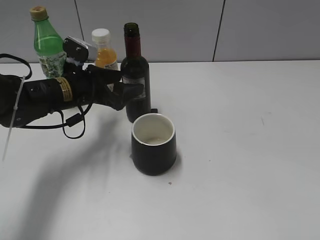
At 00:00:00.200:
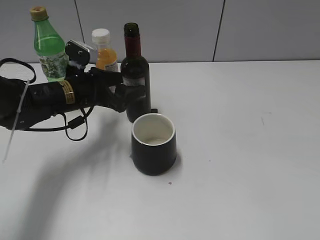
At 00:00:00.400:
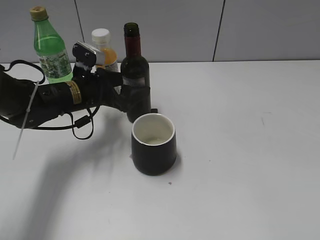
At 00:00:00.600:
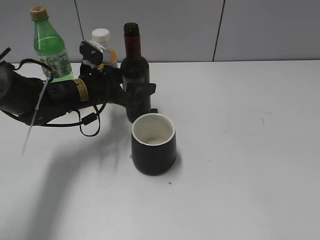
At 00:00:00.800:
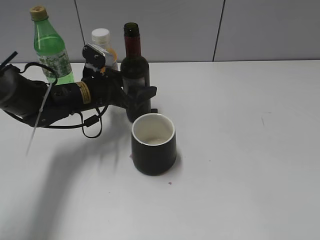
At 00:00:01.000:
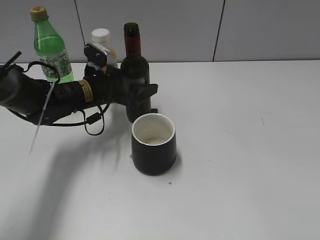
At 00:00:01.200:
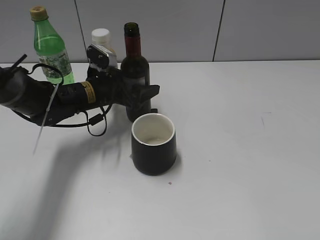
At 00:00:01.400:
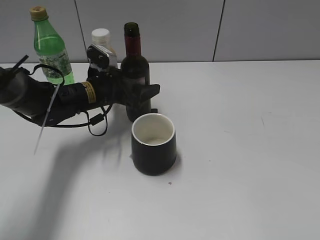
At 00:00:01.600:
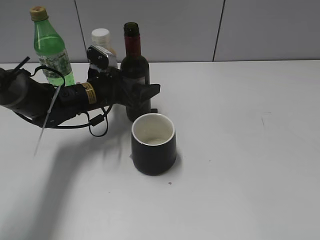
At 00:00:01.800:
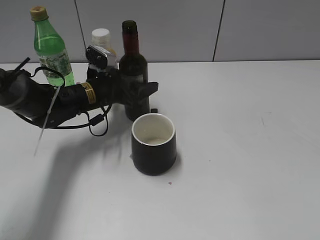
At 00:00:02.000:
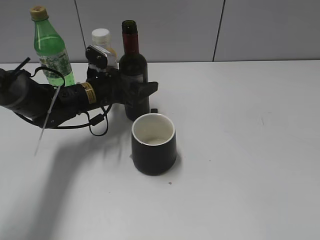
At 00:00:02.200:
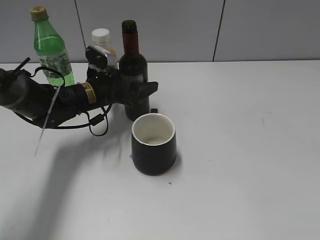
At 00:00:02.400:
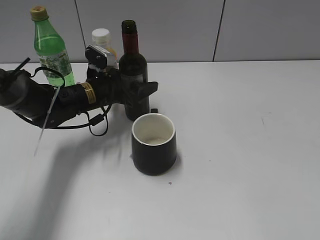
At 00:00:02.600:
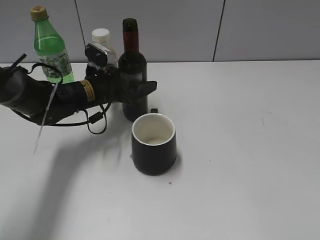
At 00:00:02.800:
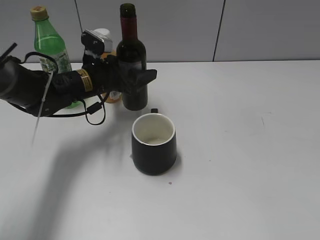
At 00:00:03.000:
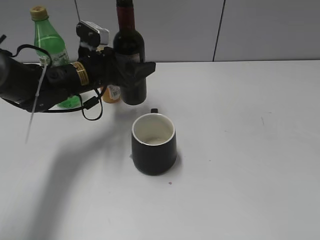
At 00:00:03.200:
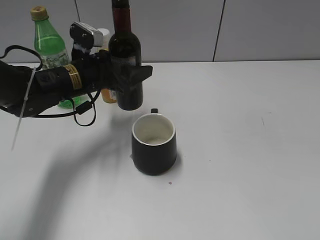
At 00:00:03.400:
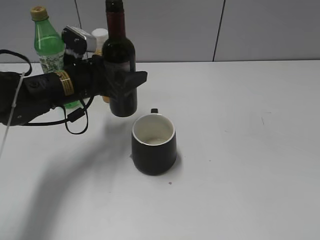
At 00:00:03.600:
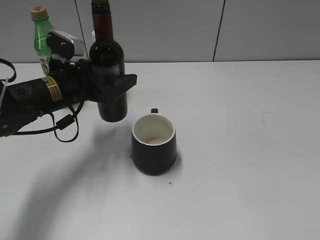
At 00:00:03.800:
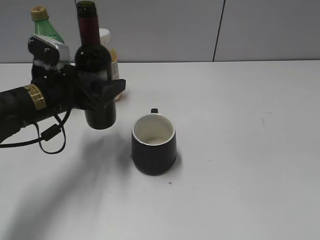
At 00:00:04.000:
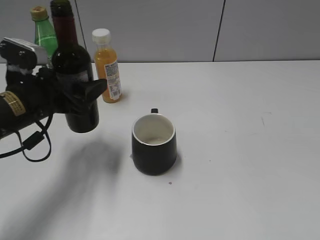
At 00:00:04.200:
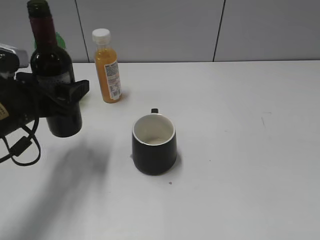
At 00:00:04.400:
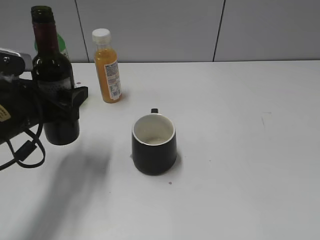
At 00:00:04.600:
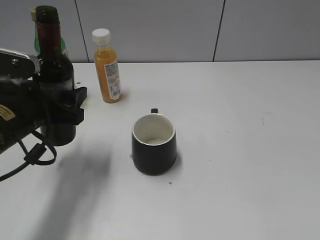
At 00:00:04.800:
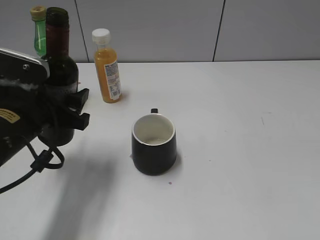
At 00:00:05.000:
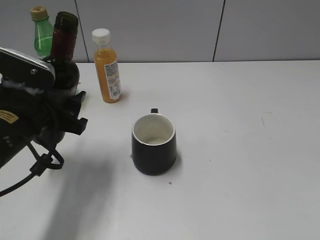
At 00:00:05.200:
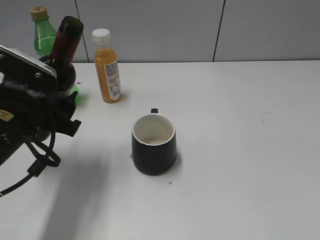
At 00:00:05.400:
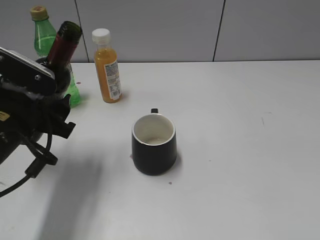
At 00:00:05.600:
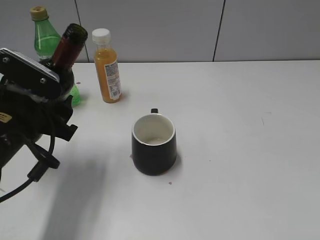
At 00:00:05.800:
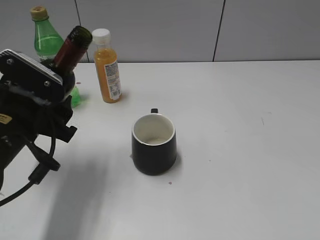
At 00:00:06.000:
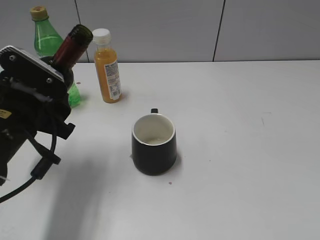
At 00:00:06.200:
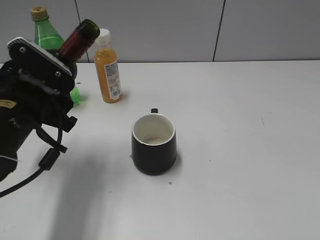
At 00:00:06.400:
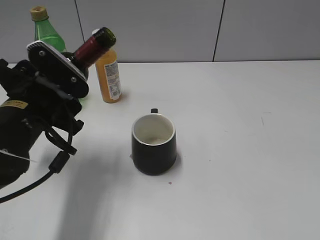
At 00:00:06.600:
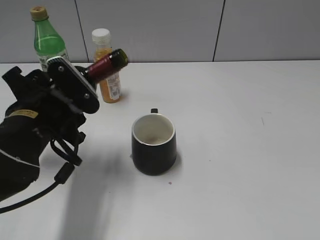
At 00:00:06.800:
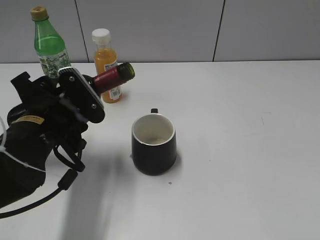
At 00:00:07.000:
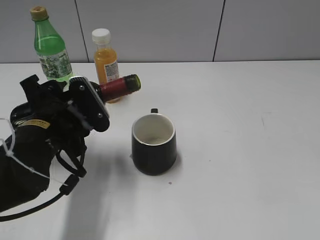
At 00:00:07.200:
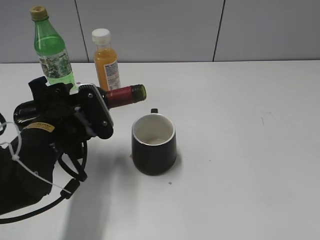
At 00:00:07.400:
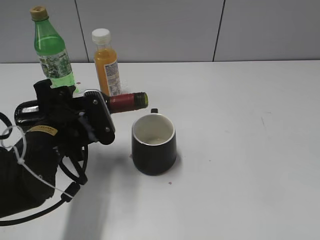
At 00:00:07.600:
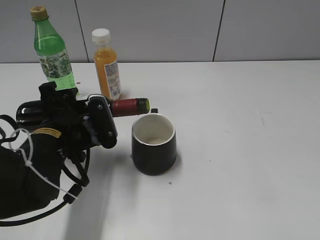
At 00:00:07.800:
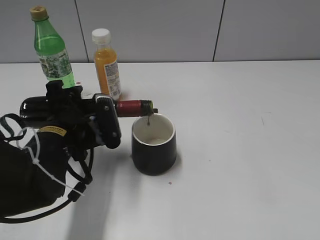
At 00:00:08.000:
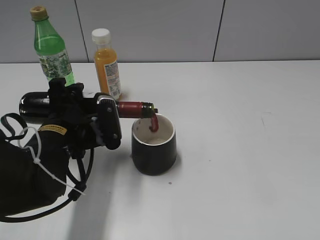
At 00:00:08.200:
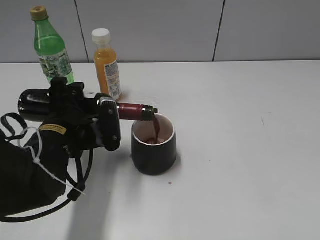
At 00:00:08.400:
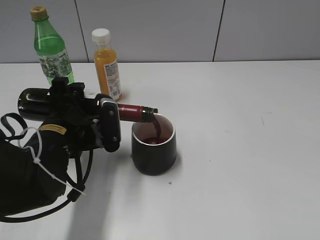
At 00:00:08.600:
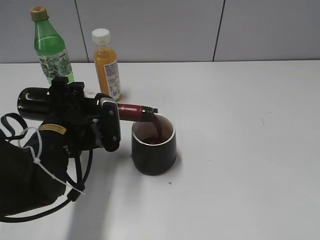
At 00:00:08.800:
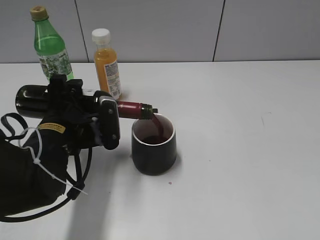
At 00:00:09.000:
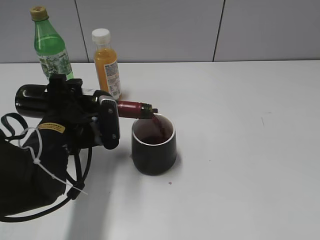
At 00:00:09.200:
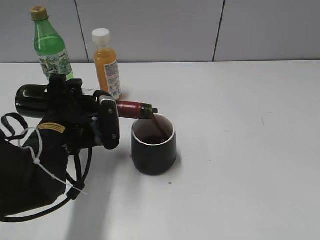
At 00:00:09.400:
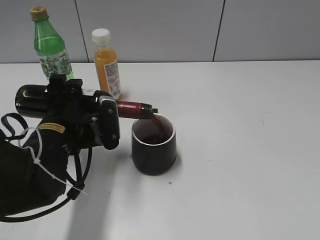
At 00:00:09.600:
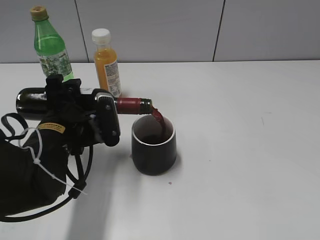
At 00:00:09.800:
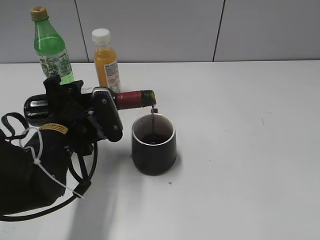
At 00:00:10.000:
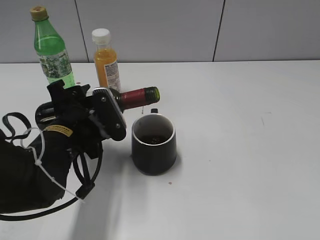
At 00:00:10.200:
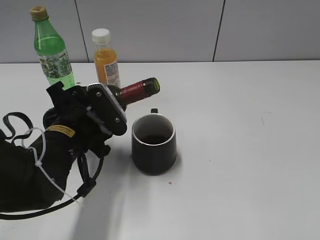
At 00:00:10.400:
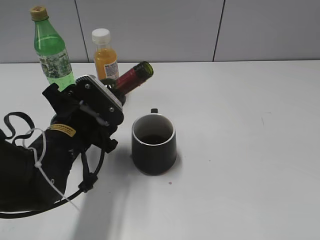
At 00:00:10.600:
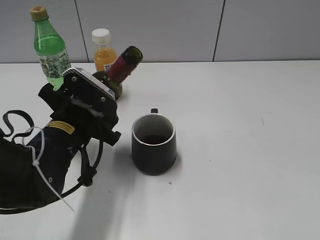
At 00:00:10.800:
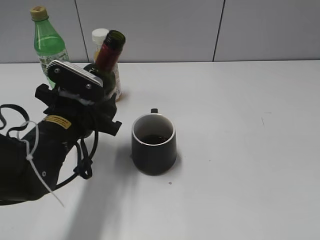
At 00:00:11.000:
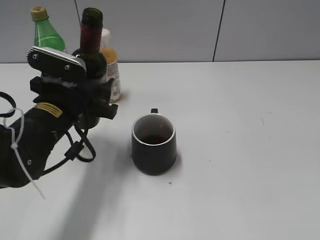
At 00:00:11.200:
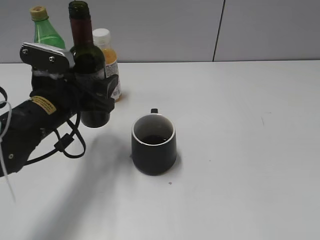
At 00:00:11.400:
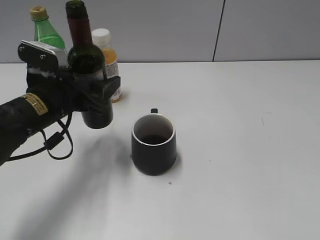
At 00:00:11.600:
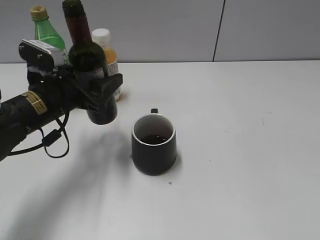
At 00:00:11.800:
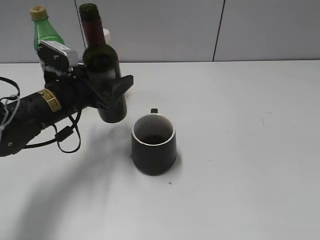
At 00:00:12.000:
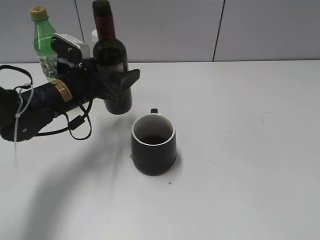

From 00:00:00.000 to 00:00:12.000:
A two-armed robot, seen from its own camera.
Step, from 00:00:00.000 to 00:00:02.200: Grasp the bottle with red wine with left gripper.
Step, from 00:00:02.600 to 00:00:10.000: Pour the red wine from bottle to cup with left gripper.
From 00:00:00.000 to 00:00:01.600: The left gripper changes place by roughly 5 cm.
From 00:00:01.600 to 00:00:03.000: The left gripper is displaced upward by some 5 cm, and closes.
From 00:00:03.000 to 00:00:04.400: The left gripper travels backward and to the left by approximately 15 cm.
From 00:00:06.000 to 00:00:07.600: The left gripper moves approximately 5 cm.
From 00:00:07.600 to 00:00:09.000: There are only small adjustments of the grippers.
From 00:00:10.400 to 00:00:12.000: The left gripper moves forward, about 10 cm.

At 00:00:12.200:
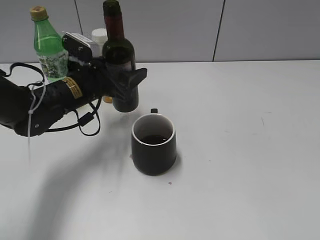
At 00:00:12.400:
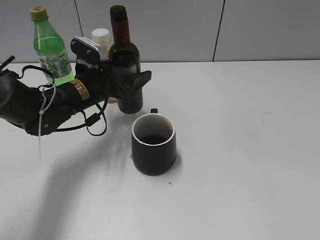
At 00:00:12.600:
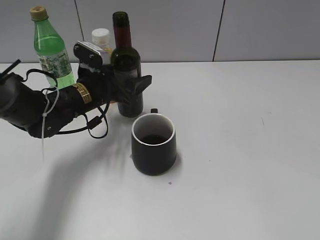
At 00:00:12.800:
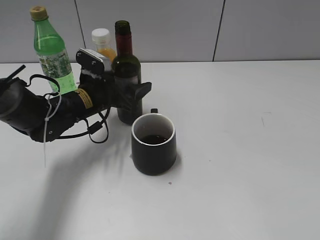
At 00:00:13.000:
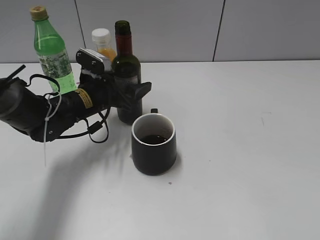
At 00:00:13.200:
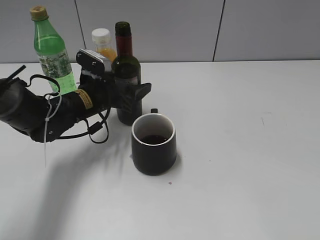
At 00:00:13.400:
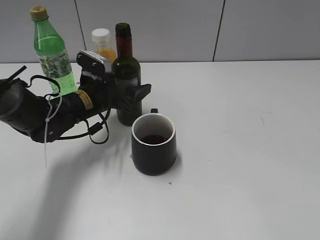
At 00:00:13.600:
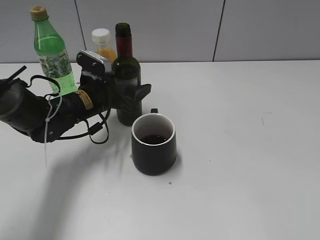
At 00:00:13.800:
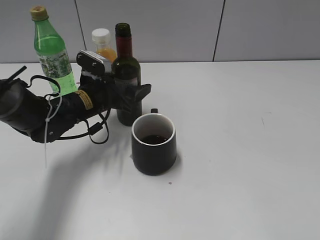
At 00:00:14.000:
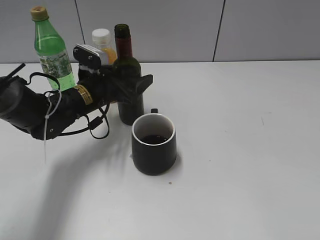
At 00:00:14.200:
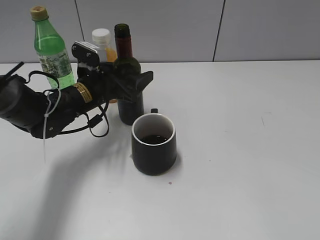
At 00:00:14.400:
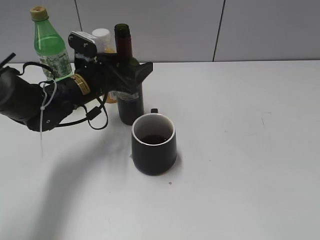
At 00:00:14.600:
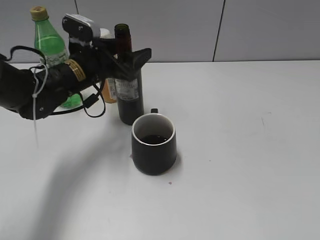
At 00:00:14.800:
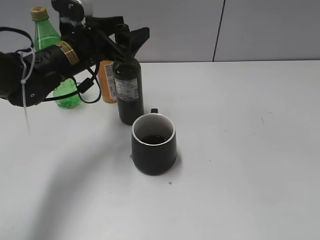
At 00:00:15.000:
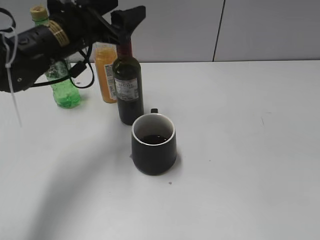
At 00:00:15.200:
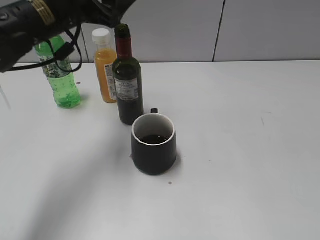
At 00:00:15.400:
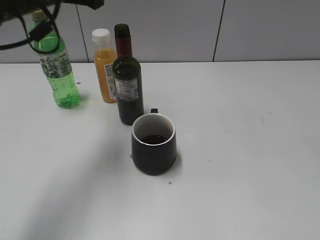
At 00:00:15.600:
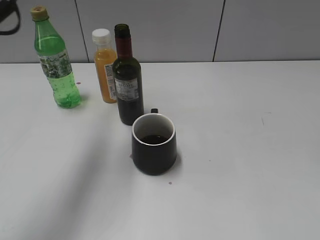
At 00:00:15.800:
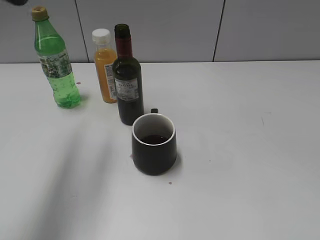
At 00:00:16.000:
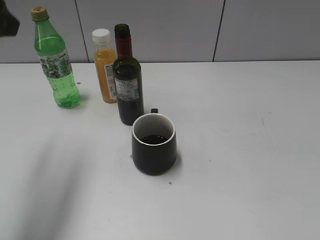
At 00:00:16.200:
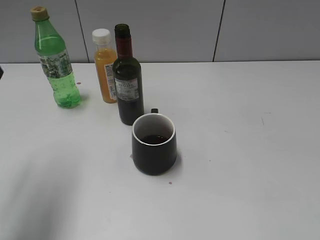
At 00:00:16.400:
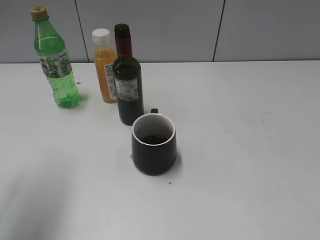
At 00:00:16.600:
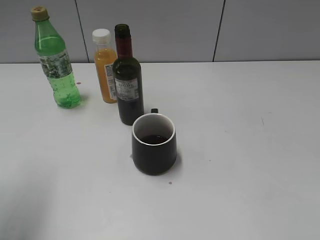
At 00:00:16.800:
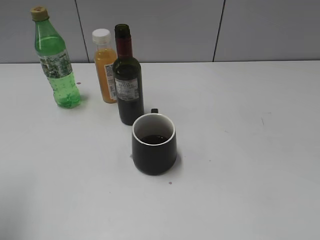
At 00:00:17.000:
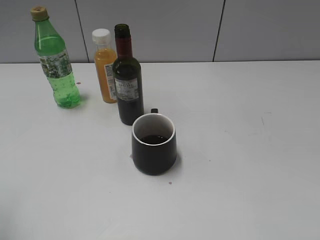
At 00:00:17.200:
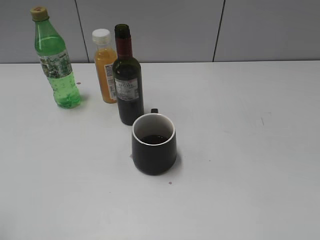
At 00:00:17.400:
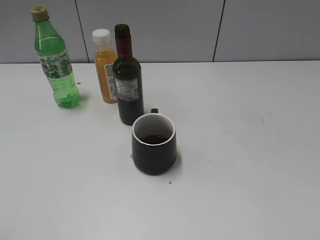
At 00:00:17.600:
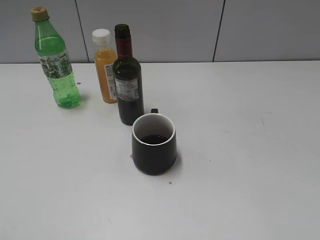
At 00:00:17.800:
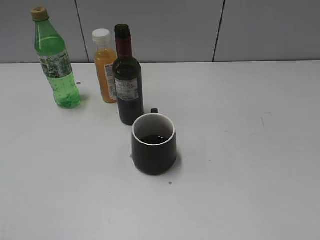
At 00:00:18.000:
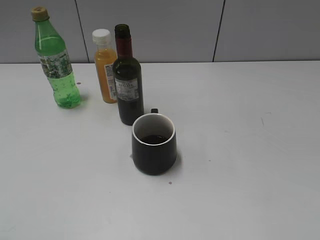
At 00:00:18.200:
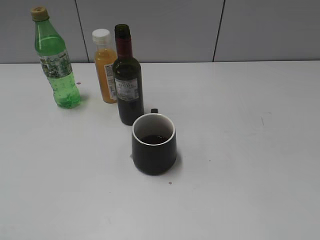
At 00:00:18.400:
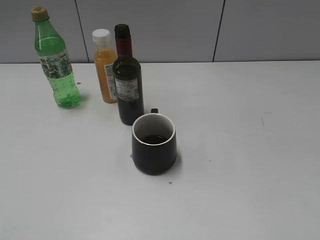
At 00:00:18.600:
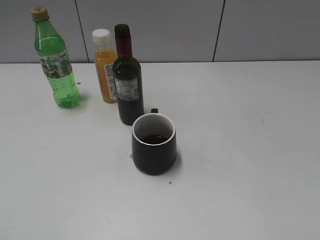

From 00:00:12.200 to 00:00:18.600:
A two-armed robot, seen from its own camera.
Step, from 00:00:12.200 to 00:00:14.400: Place the red wine bottle on the table with left gripper.
From 00:00:12.200 to 00:00:13.800: The grippers make only small movements.
From 00:00:13.800 to 00:00:15.400: The left gripper moves upward, approximately 20 cm, and opens.
From 00:00:15.400 to 00:00:17.000: The left gripper is displaced backward and to the left by some 25 cm.
